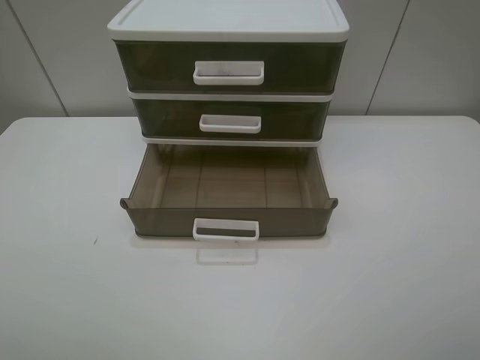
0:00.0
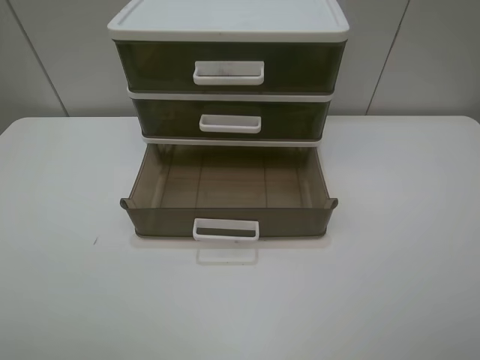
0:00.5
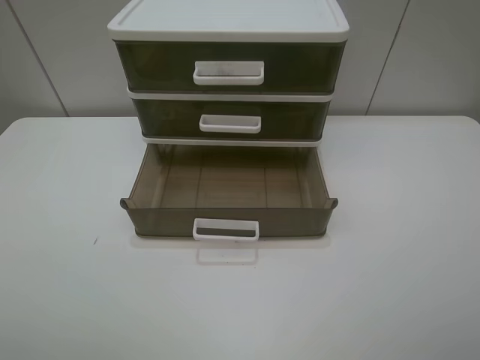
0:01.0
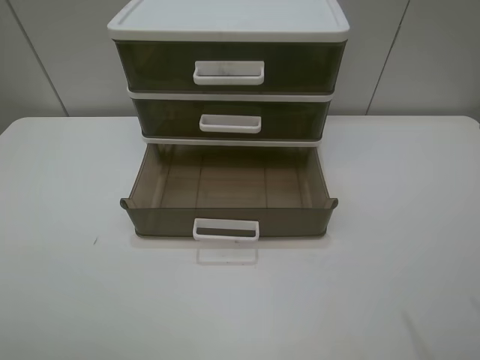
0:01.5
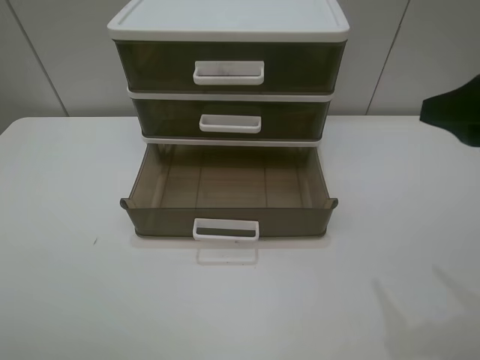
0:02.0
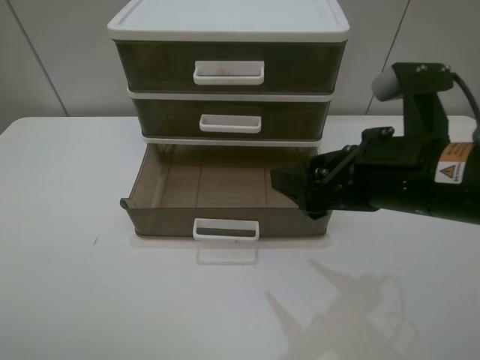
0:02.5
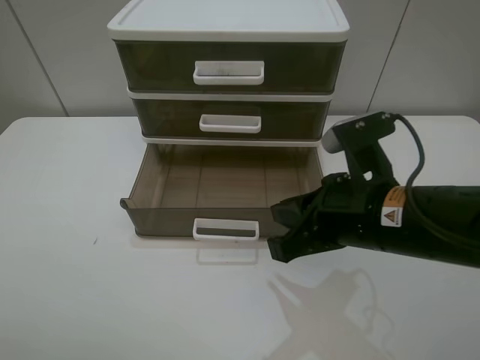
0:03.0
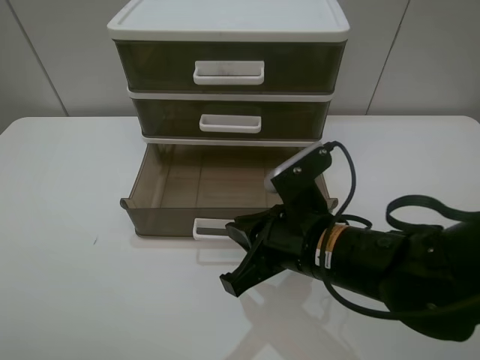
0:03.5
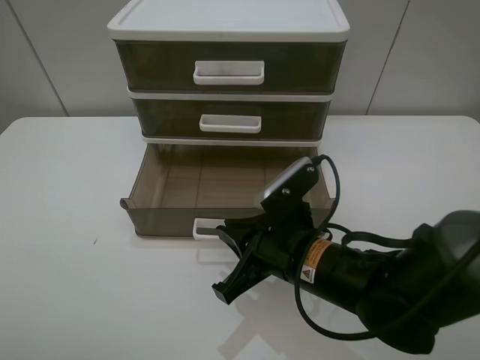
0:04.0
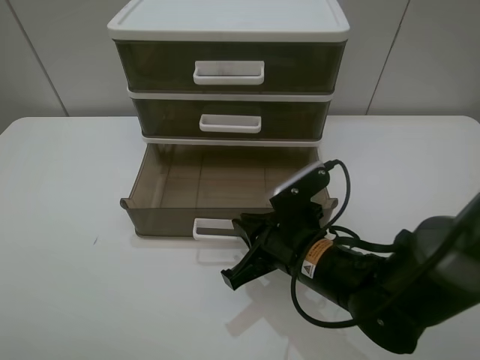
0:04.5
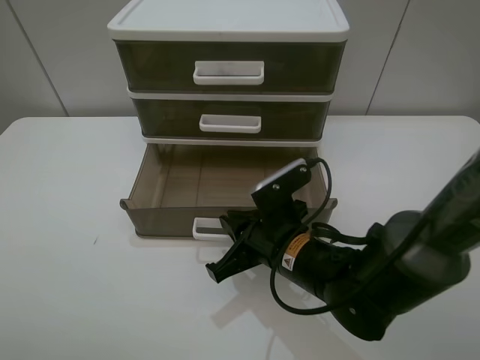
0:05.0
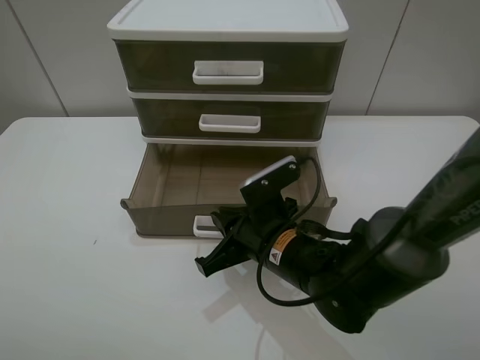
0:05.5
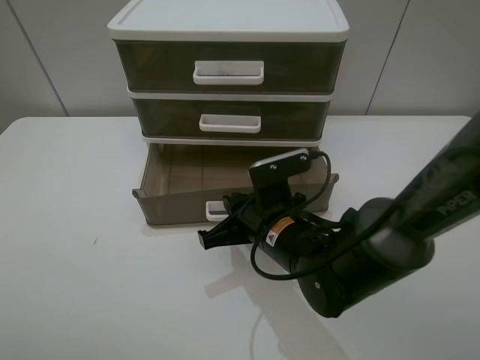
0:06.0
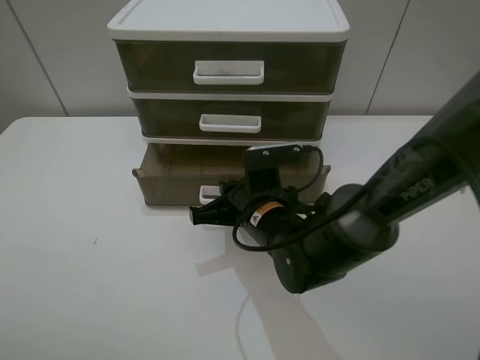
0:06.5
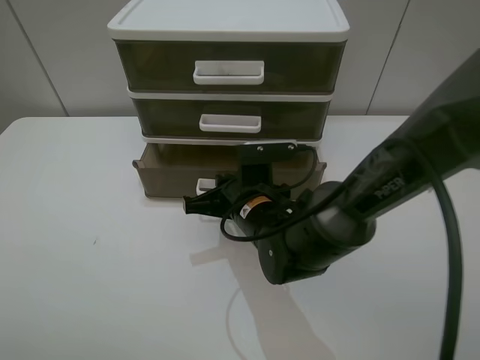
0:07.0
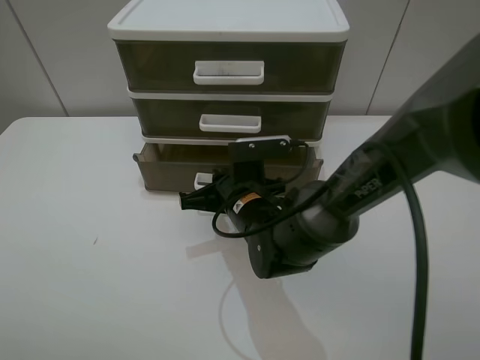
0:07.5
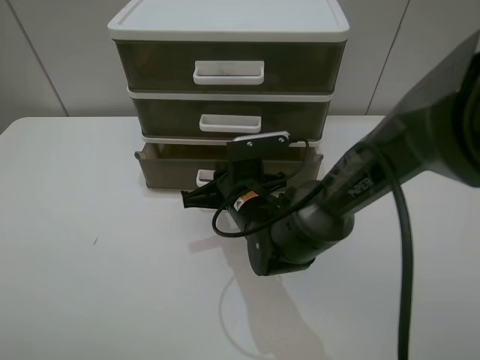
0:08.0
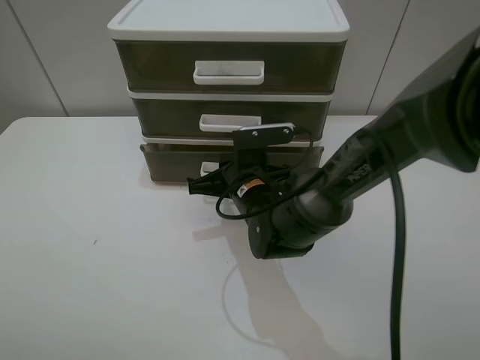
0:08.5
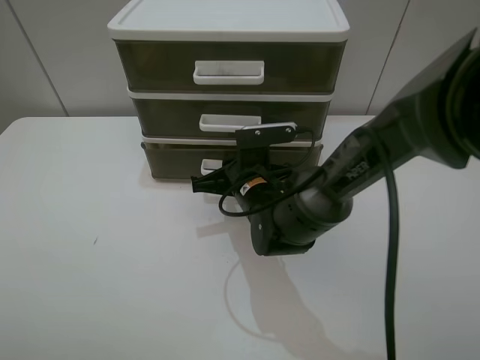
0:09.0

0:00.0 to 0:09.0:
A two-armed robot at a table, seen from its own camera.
Task of the whole recording: close the bottom drawer.
Step, 0:00.0 to 0:04.5: Use the right gripper to contact the bottom layer of the storage cabinet.
Step, 0:05.0 to 0:08.5: Push the bottom drawer closed.
0:00.0 to 0:02.0: The right gripper heads forward, covering about 15 cm.
0:02.0 to 0:04.5: The right gripper is displaced downward and to the left by approximately 25 cm, and closes its fingers.
0:04.5 to 0:07.0: The right gripper goes some 10 cm forward and to the left.
0:07.0 to 0:09.0: The grippers make only small movements.

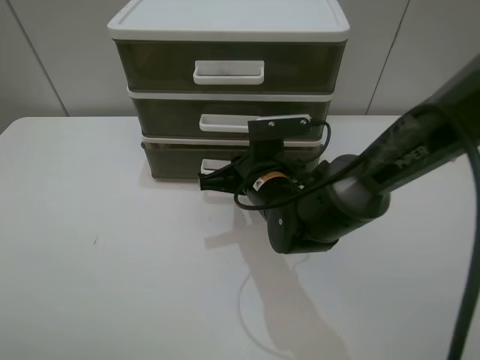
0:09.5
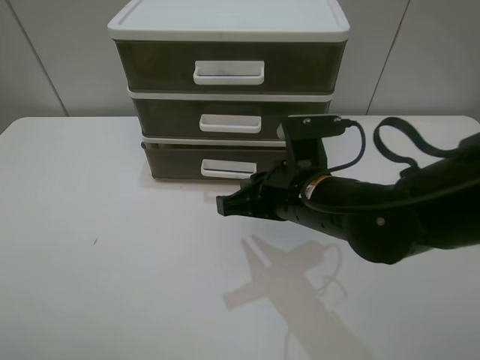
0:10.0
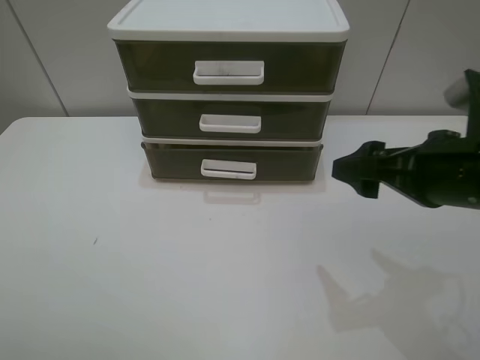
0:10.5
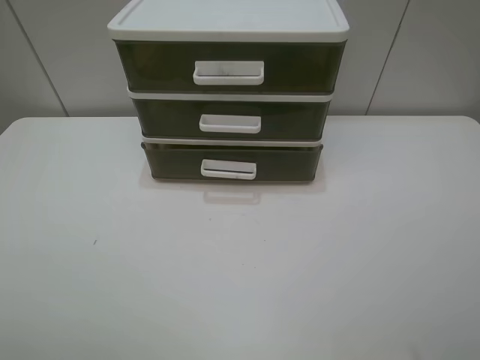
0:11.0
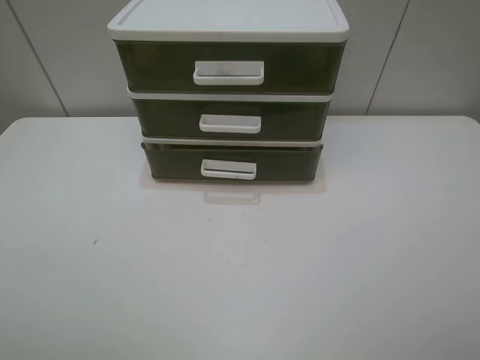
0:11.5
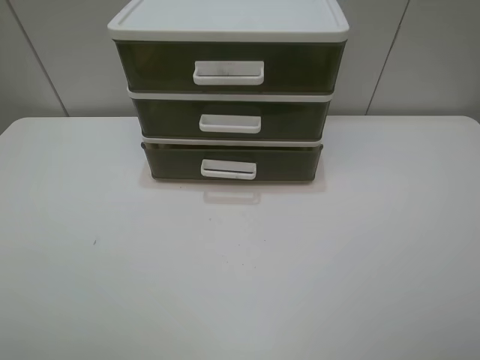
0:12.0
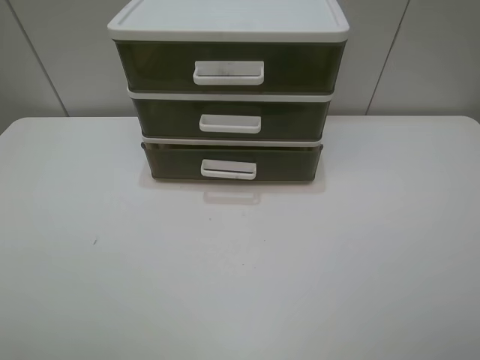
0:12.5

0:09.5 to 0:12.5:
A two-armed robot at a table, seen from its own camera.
Task of the whole recording: close the bottom drawer.
0:09.5 to 0:11.0: The right gripper travels to the right, backward and upward by about 40 cm, and opens its fingers.
